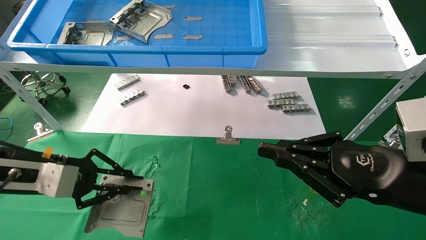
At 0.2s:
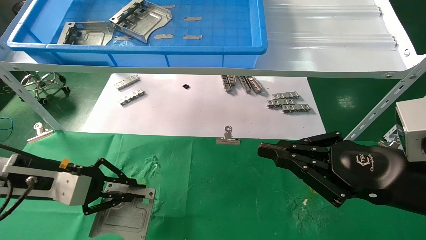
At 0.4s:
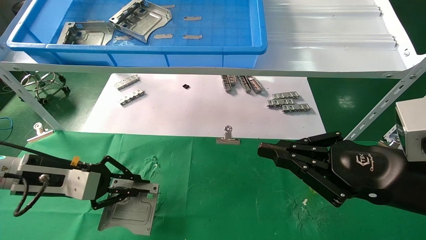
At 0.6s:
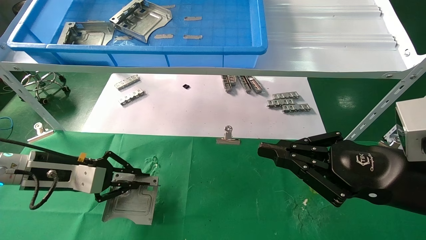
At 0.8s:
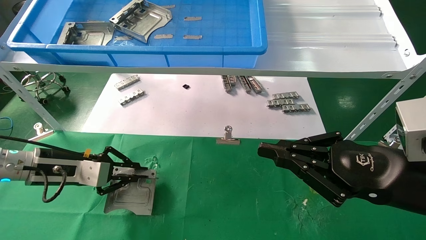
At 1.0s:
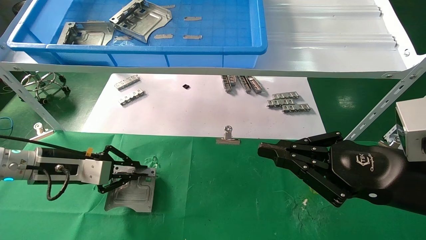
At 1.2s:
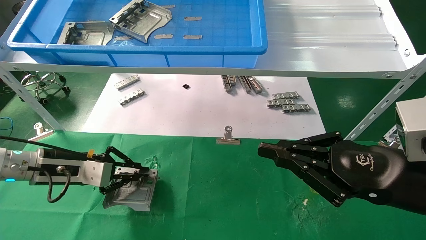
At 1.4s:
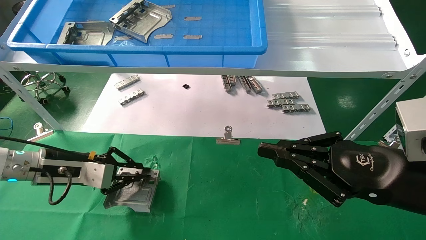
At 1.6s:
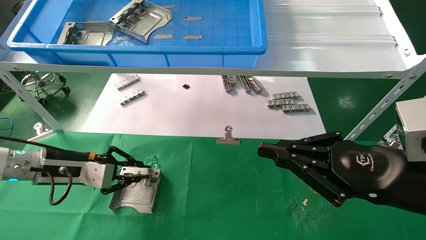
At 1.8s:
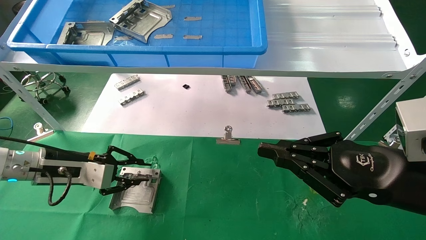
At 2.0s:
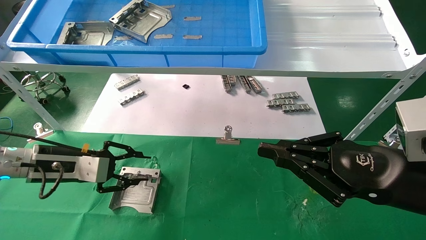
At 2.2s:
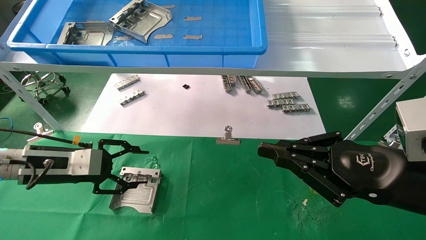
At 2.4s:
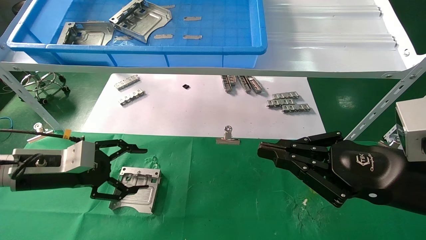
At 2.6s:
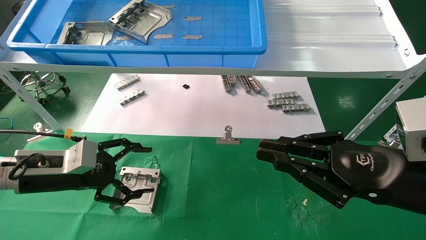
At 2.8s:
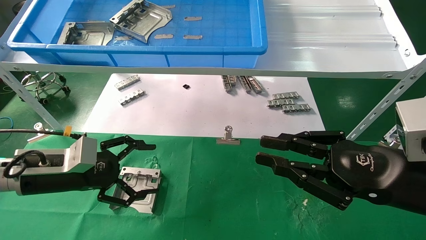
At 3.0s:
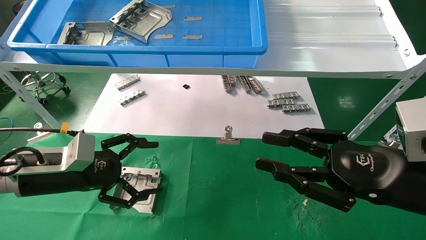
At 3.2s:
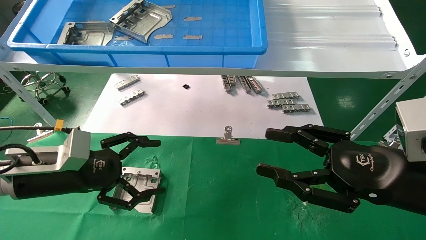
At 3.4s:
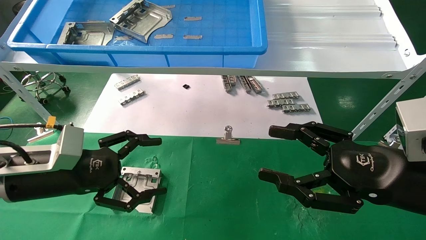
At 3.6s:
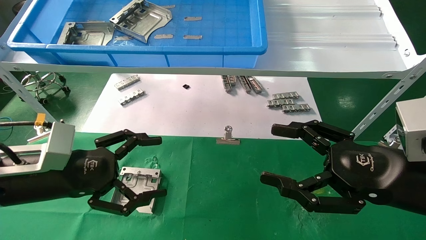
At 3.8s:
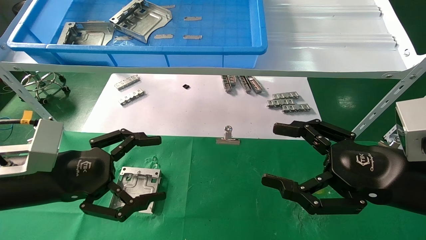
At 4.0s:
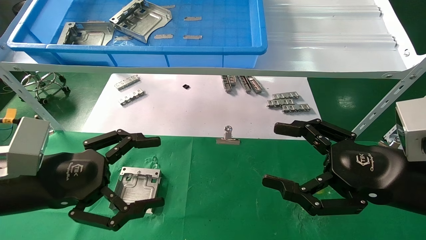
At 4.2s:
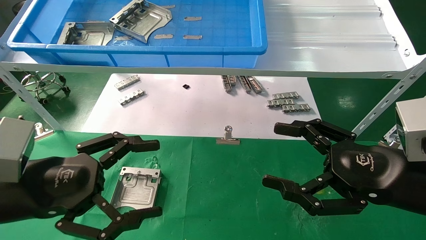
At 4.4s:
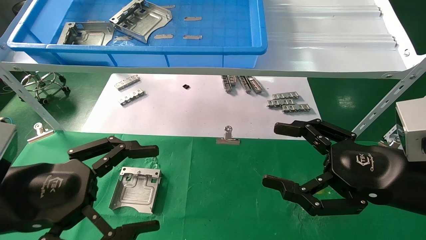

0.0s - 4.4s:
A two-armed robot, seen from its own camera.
Task of the whole recording: use the mechanical arm to pick up the parts and place them on the table.
0.0s - 1.4s: The left gripper is displaced forward by some 5 cm.
1.4s - 3.0s: The left gripper travels backward by roughly 5 cm, and opens its fingers.
3.0s - 4.4s: The left gripper moves backward, roughly 10 cm; the right gripper opens up.
